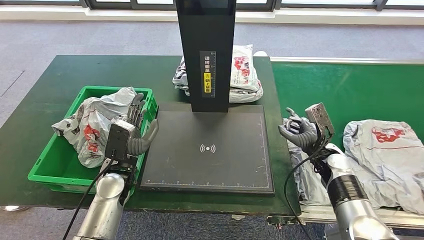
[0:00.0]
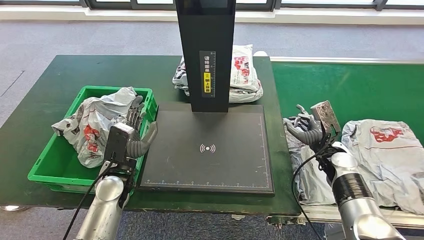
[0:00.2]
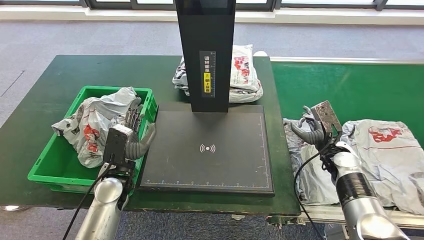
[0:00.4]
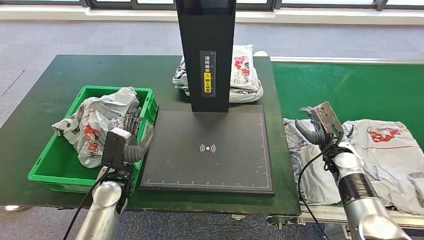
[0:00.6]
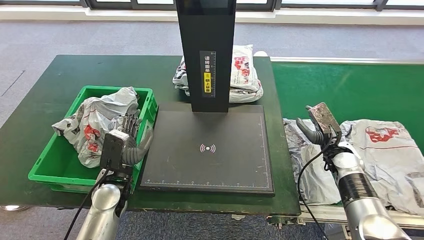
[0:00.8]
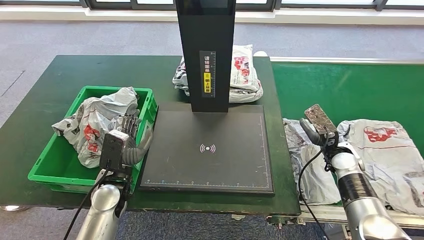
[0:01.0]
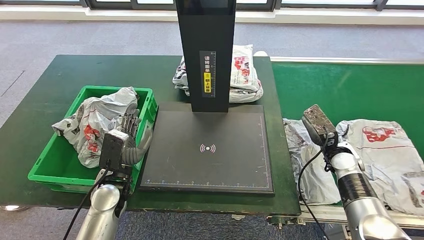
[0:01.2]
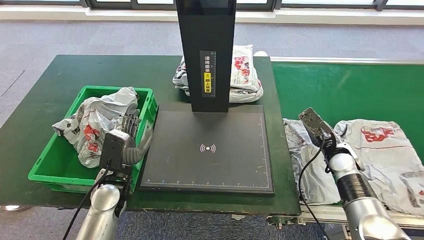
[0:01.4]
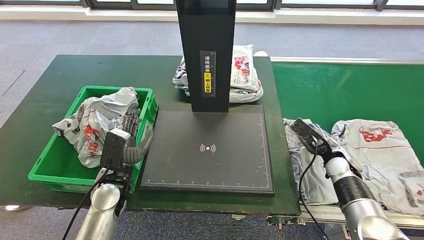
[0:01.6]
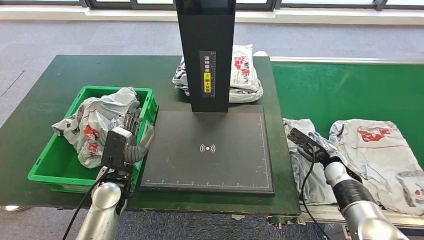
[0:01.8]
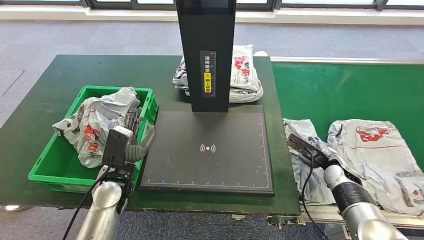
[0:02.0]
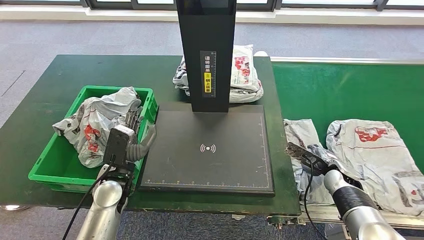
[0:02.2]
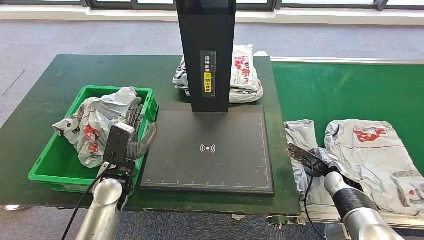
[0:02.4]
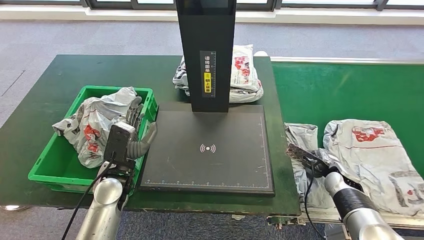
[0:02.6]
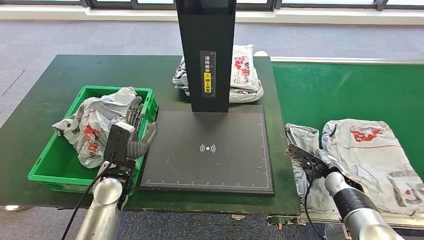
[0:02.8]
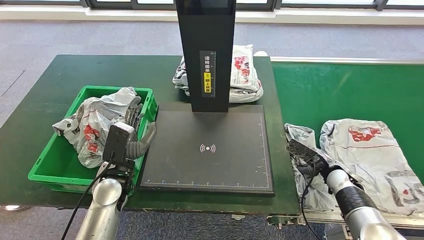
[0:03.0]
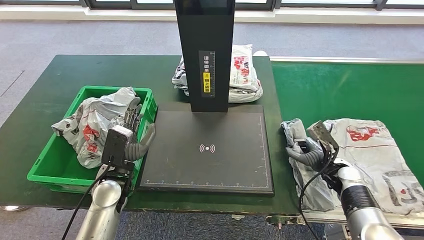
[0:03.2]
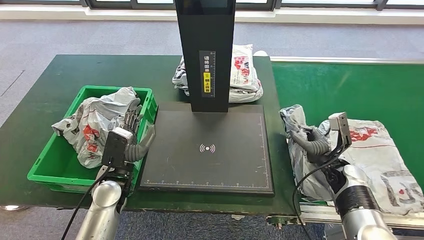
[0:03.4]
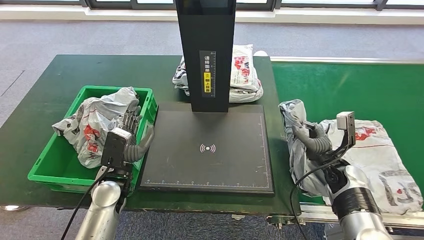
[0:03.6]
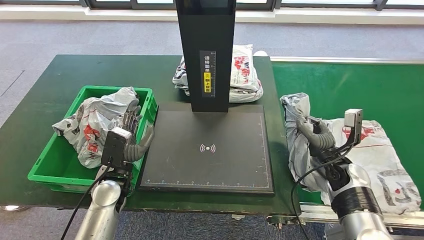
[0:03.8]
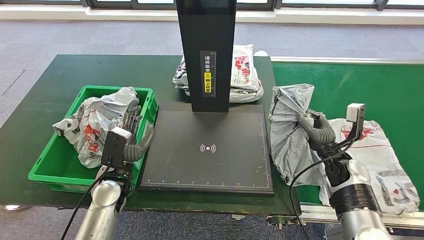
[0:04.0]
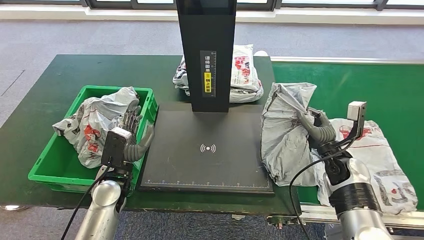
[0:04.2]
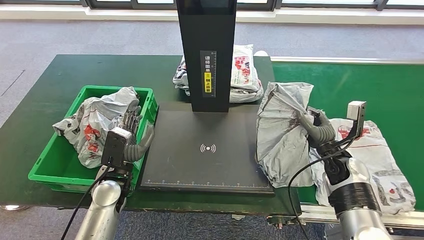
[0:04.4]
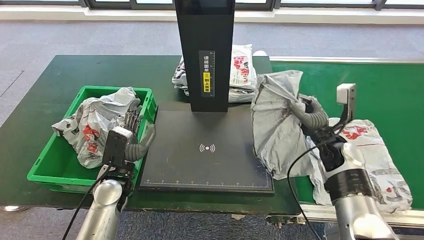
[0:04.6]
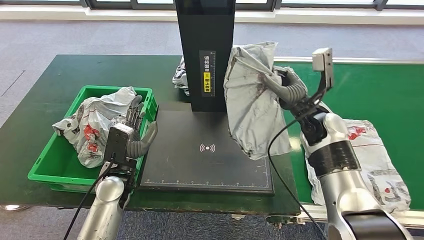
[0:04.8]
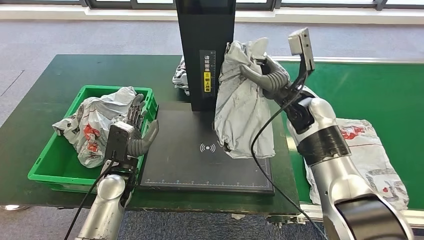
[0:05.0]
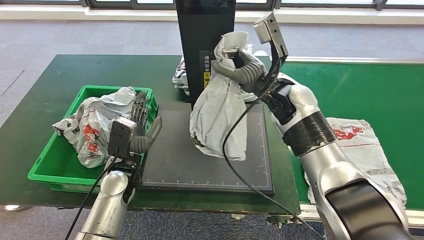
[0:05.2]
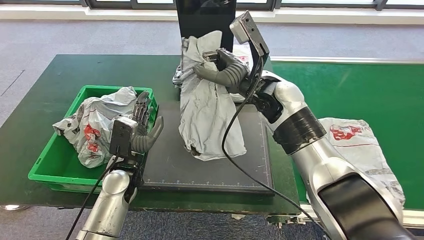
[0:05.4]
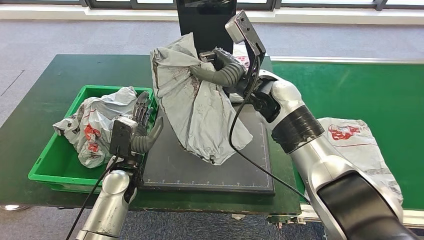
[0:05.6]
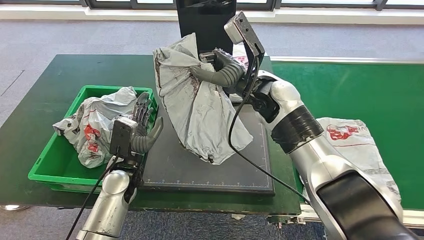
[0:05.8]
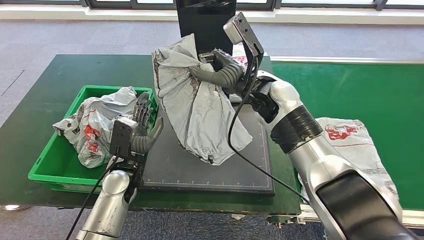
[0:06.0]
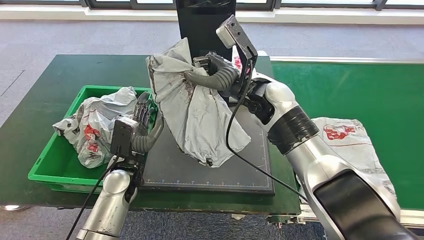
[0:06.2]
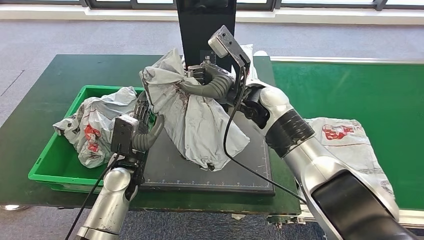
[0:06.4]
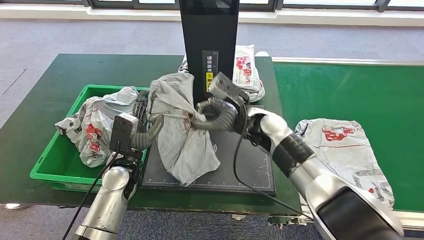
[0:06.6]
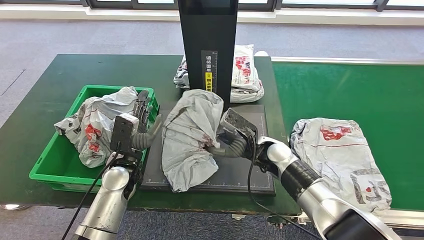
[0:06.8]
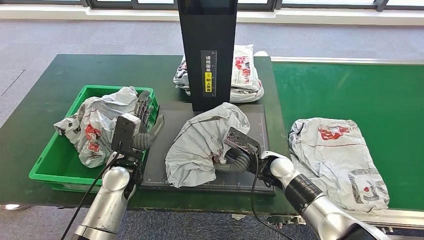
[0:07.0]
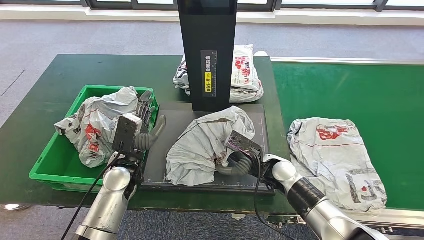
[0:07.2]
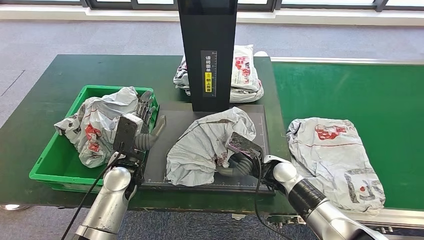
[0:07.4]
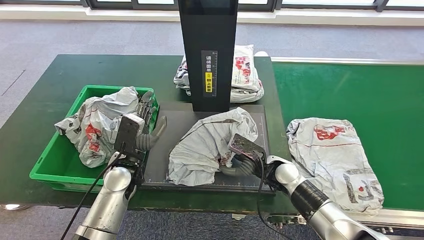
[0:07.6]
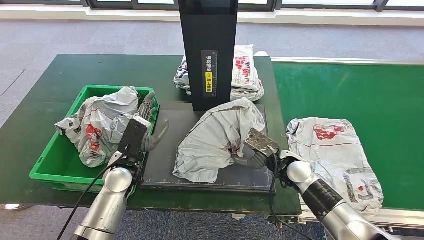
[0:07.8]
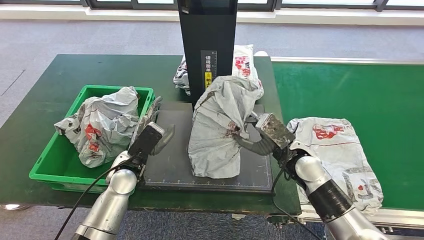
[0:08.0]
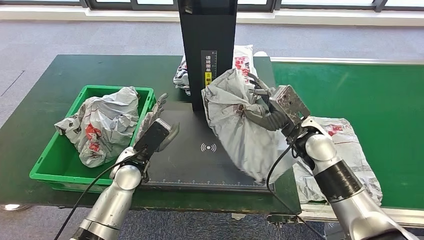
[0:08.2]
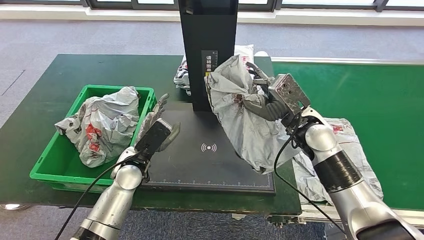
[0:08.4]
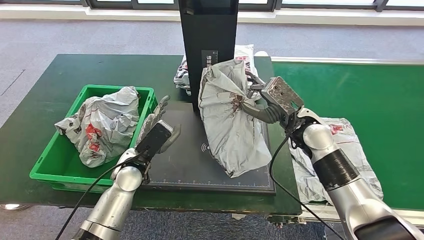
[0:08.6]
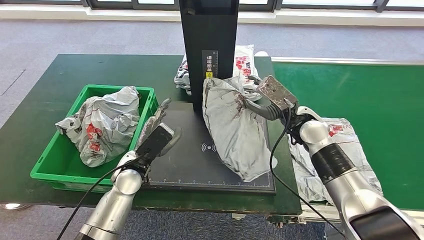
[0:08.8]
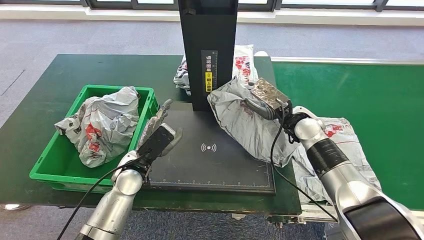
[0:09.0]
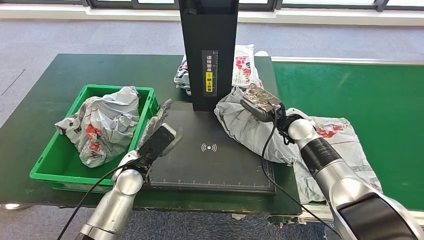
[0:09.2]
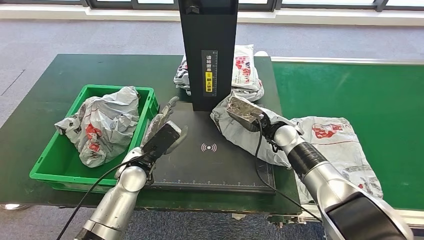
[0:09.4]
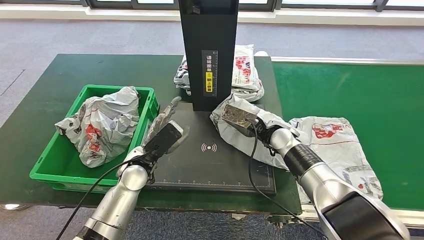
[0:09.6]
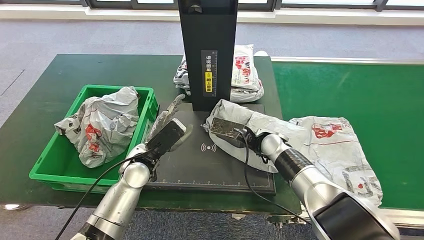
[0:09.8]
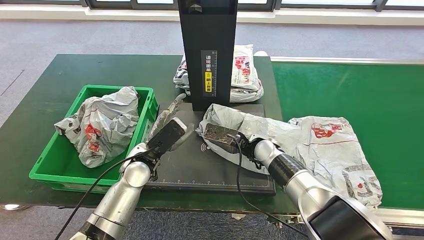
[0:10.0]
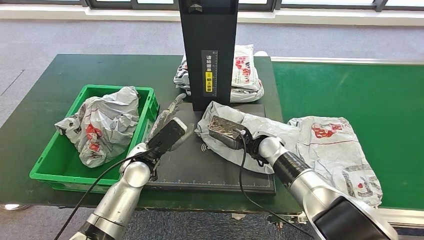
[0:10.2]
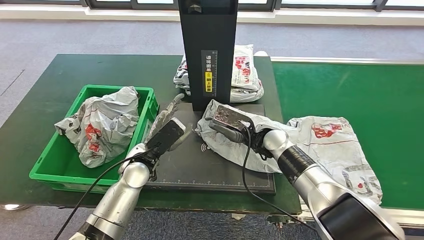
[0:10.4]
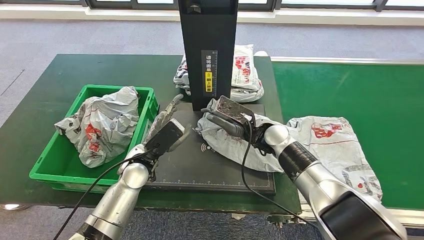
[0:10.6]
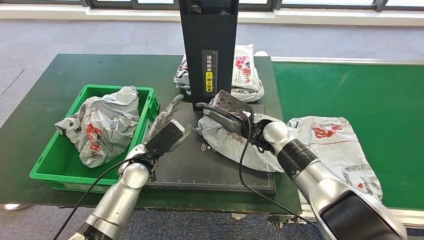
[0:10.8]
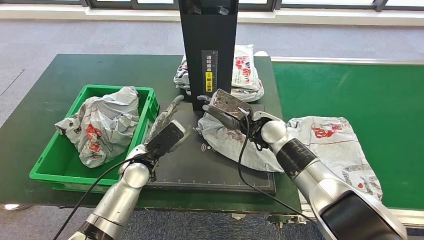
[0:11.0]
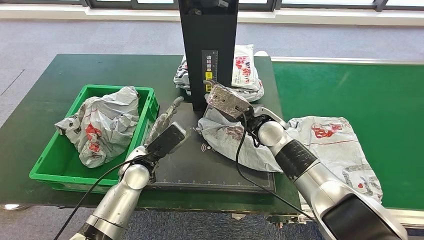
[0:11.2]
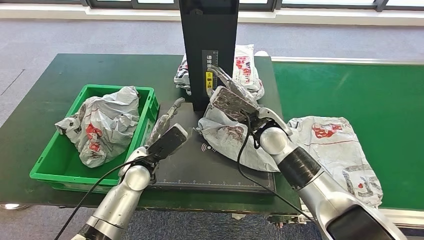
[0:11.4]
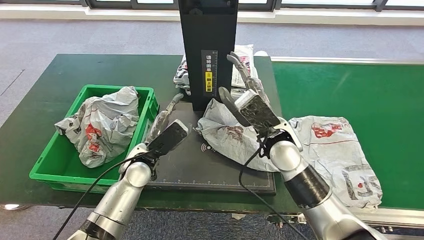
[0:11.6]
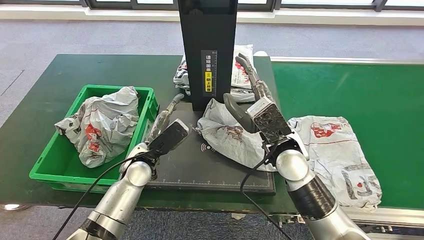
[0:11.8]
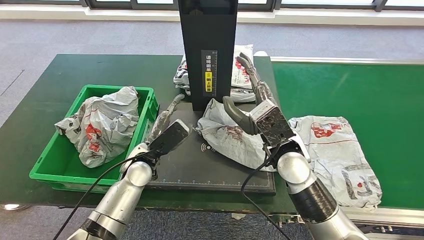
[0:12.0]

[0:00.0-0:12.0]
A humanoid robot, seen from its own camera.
Step, 0:02.6 to 0:04.0: Pick up the parcel from the conveyor belt.
Step, 0:05.2 to 0:11.6: Place the parcel onto the inbound machine.
0:03.0 to 0:04.4: The right hand is displaced upward by roughly 5 cm.
0:09.0 to 0:10.4: The right hand goes roughly 10 cm to the left.
0:10.4 to 0:12.0: The right hand goes some 10 cm upward and backward.

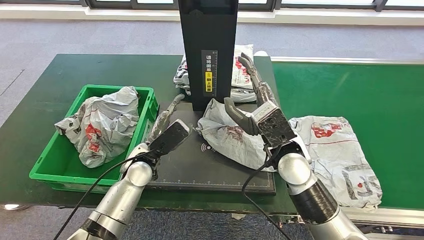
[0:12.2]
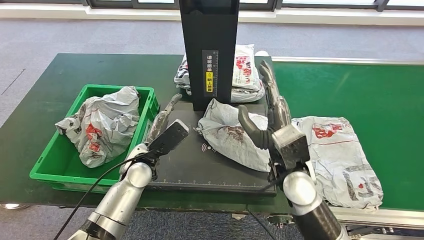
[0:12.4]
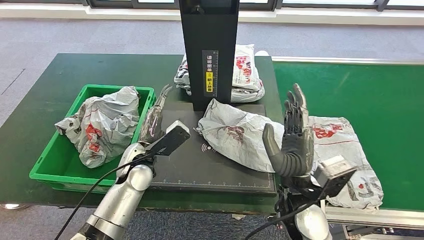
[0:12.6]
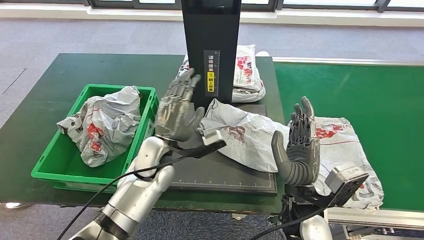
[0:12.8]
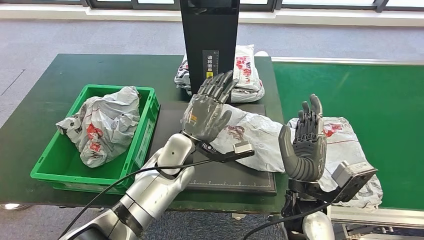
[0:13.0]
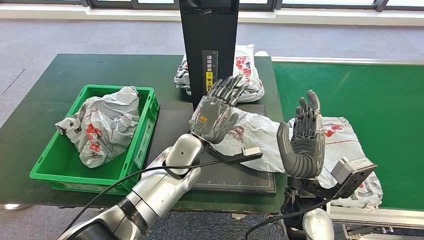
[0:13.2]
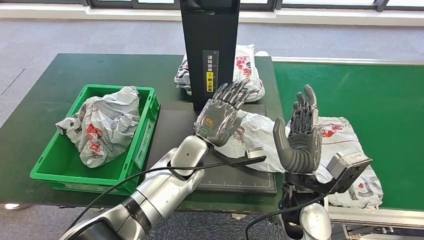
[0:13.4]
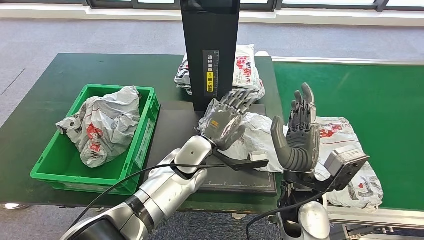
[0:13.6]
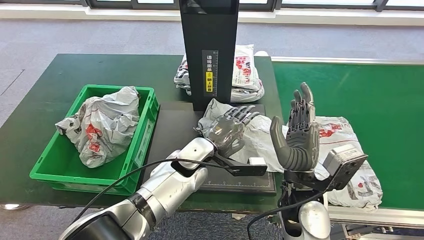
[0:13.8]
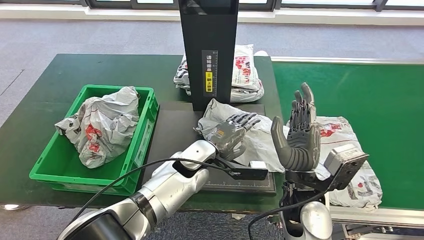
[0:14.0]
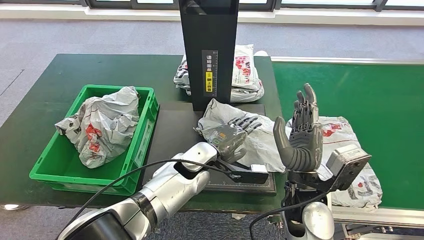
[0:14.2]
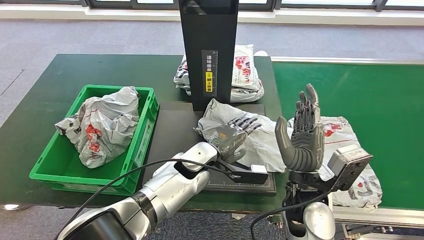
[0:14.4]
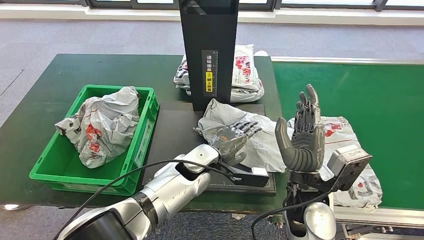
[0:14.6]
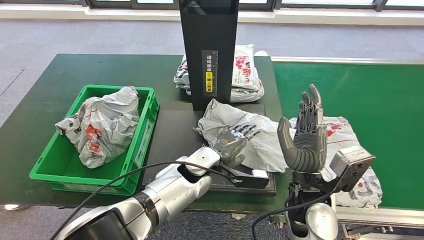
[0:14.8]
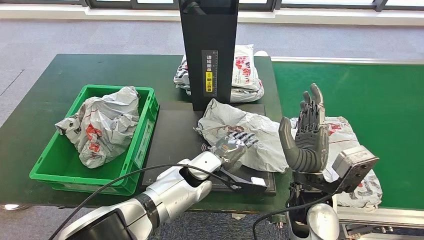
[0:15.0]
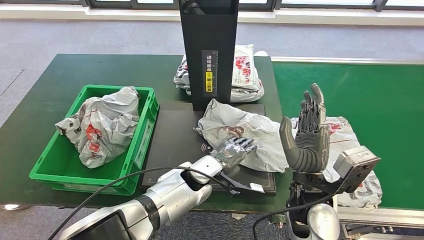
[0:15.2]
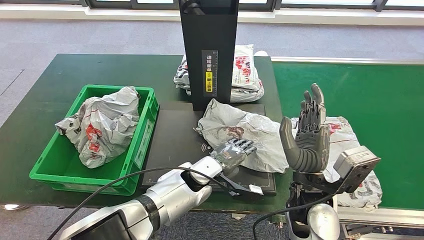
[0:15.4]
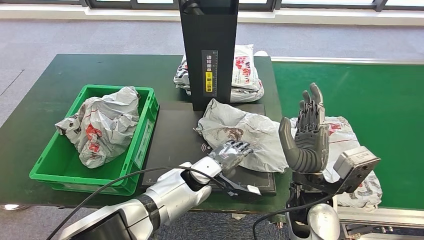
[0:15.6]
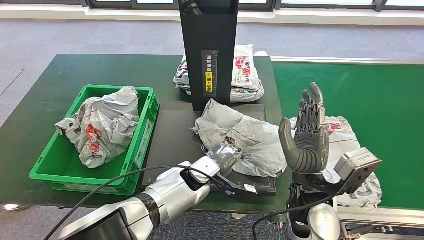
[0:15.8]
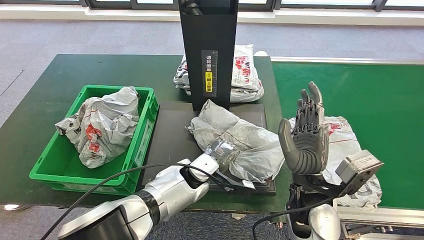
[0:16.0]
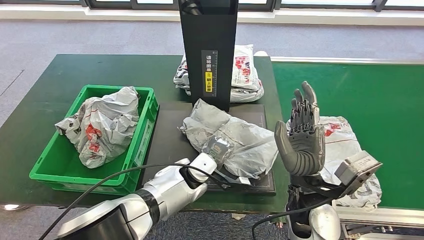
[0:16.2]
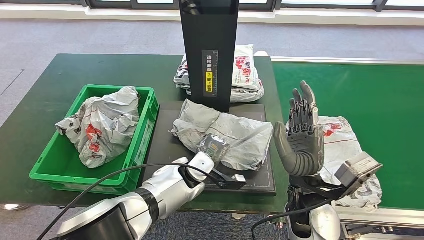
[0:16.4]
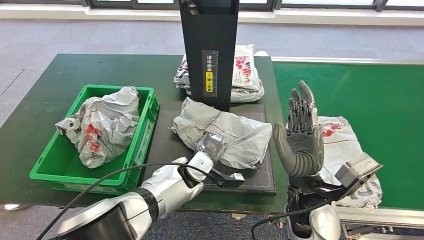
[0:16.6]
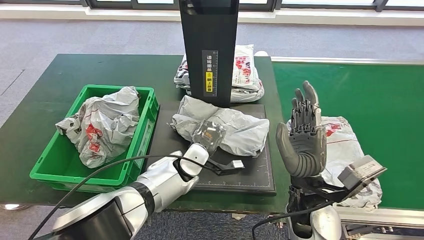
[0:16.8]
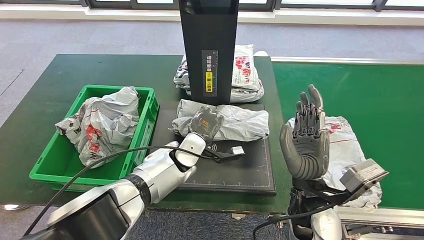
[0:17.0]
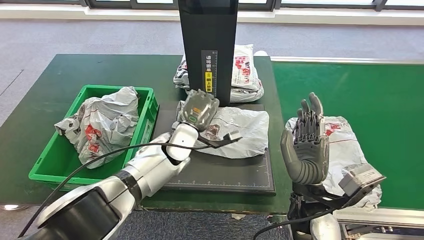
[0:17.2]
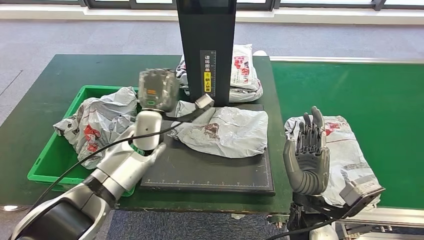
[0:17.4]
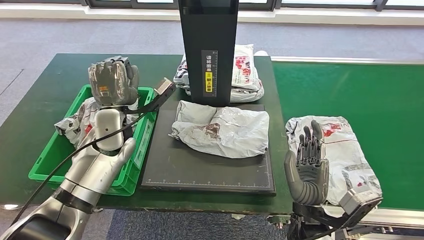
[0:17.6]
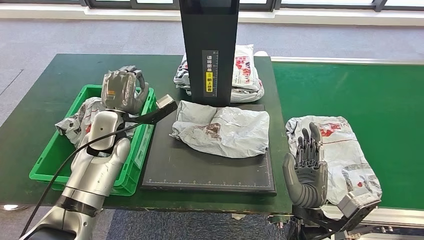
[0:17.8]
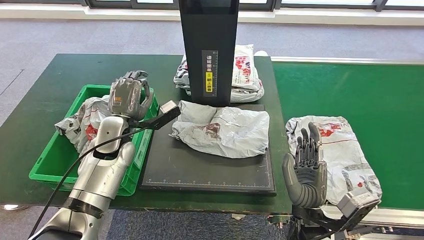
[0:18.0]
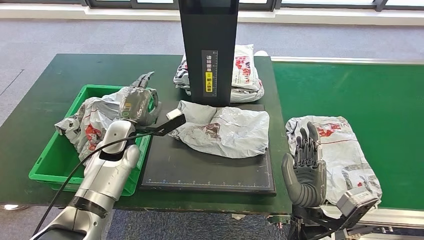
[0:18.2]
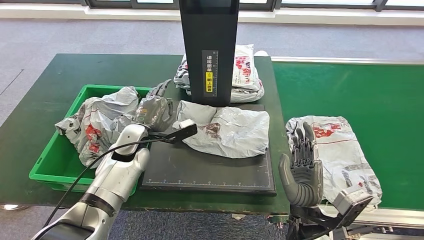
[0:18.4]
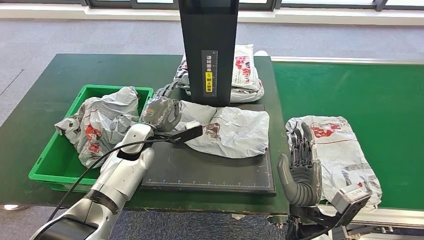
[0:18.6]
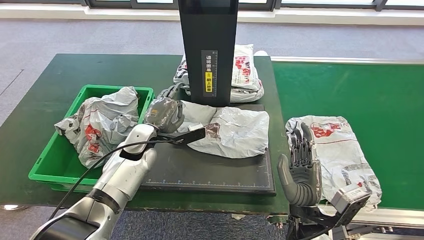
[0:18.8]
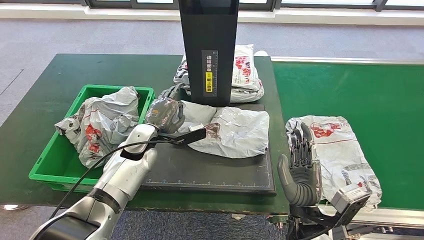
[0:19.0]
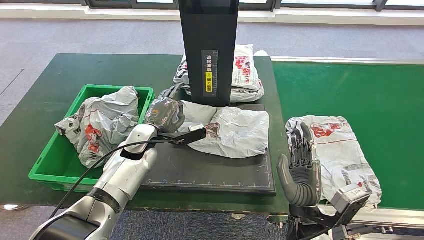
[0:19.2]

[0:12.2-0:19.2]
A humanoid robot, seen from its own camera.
0:17.8 to 0:19.2: The left hand moves downward and to the right, some 10 cm.
